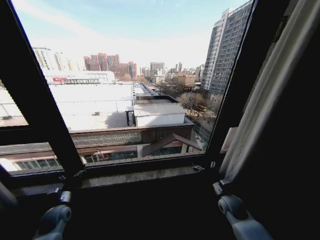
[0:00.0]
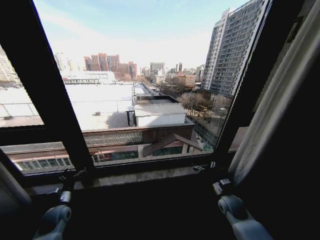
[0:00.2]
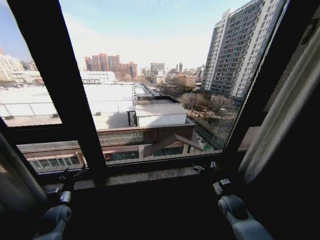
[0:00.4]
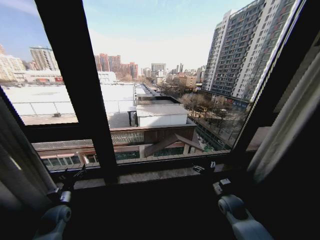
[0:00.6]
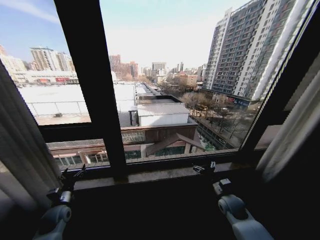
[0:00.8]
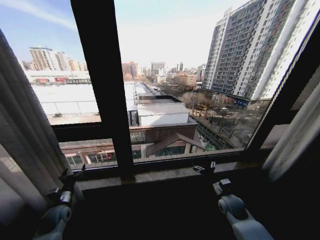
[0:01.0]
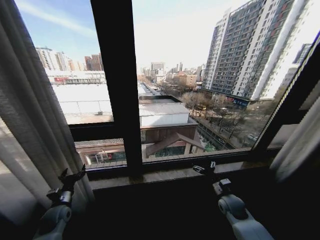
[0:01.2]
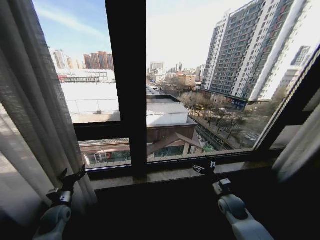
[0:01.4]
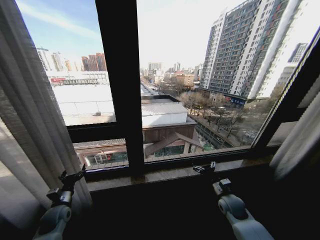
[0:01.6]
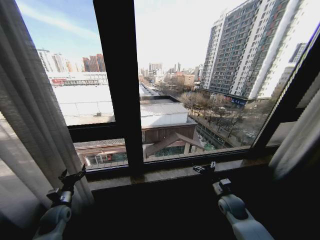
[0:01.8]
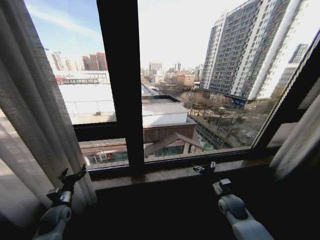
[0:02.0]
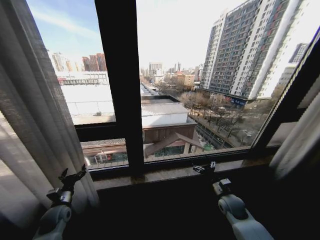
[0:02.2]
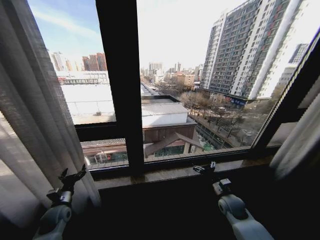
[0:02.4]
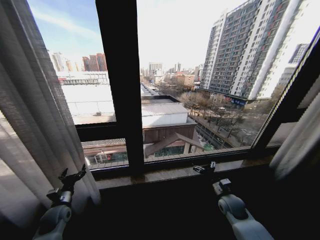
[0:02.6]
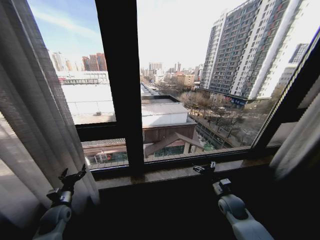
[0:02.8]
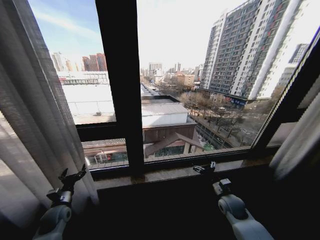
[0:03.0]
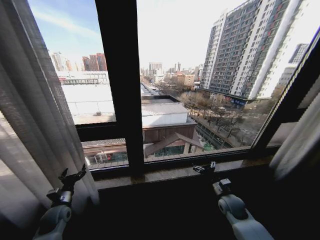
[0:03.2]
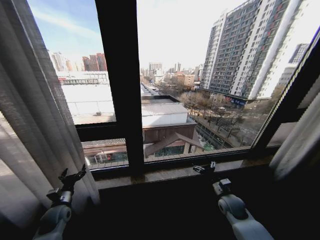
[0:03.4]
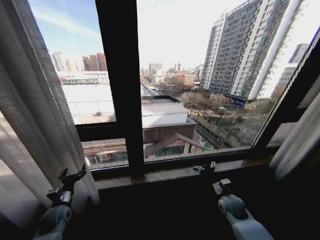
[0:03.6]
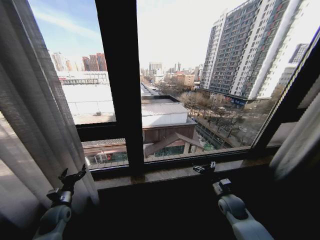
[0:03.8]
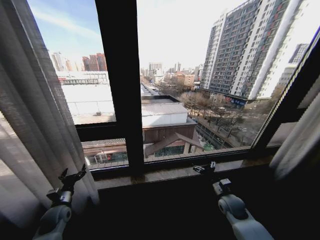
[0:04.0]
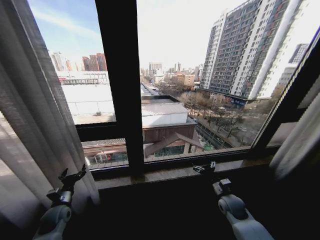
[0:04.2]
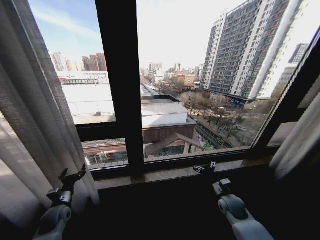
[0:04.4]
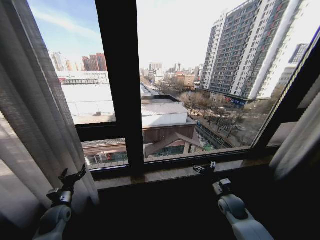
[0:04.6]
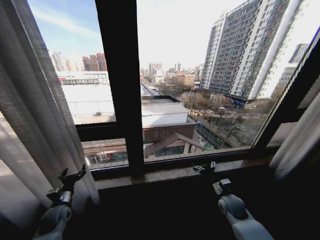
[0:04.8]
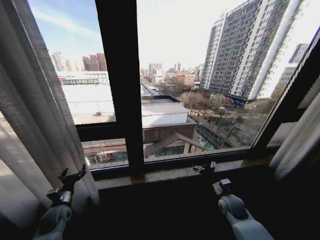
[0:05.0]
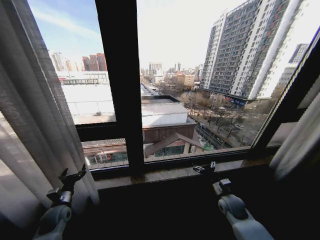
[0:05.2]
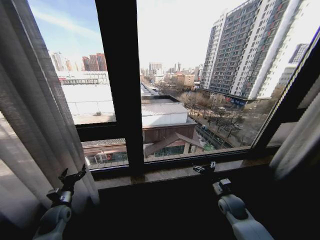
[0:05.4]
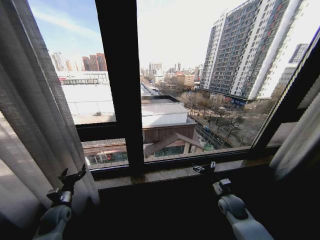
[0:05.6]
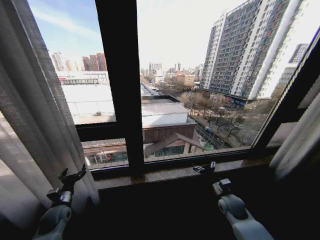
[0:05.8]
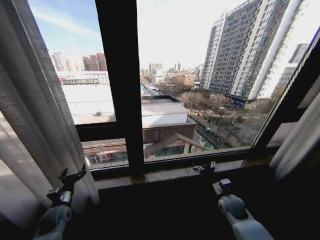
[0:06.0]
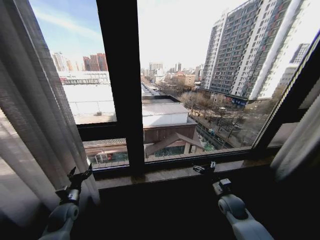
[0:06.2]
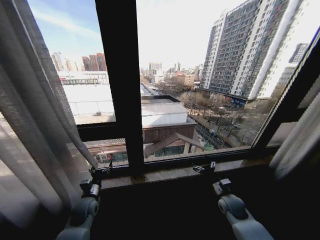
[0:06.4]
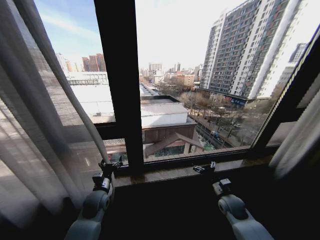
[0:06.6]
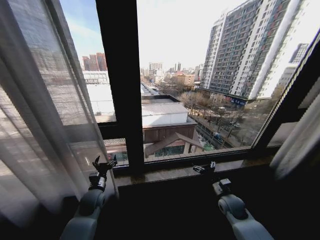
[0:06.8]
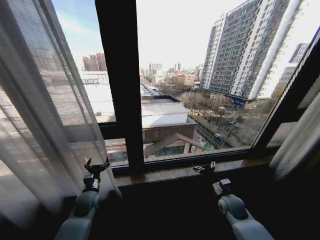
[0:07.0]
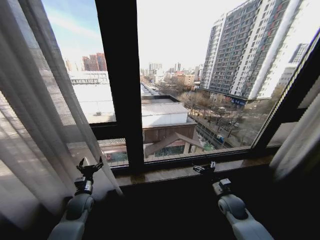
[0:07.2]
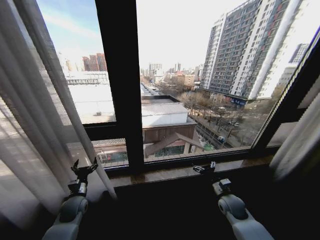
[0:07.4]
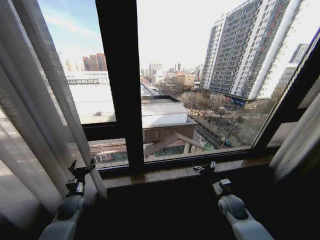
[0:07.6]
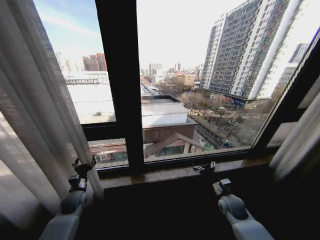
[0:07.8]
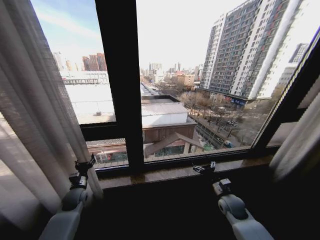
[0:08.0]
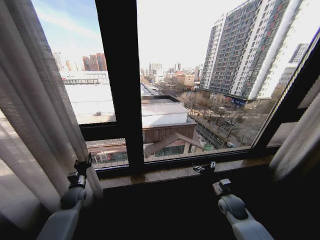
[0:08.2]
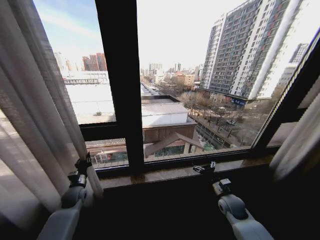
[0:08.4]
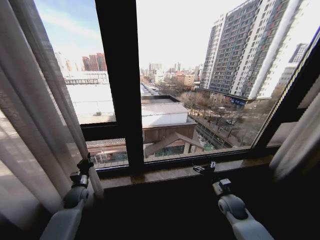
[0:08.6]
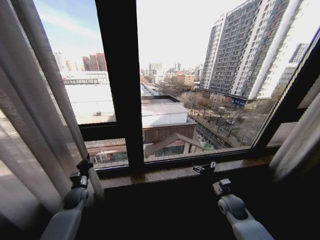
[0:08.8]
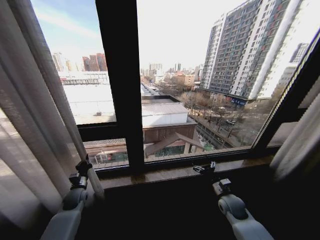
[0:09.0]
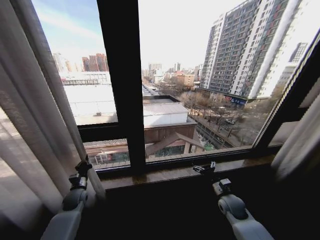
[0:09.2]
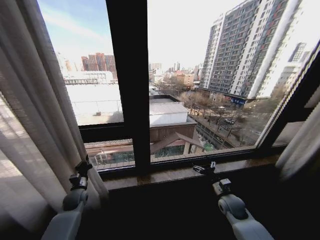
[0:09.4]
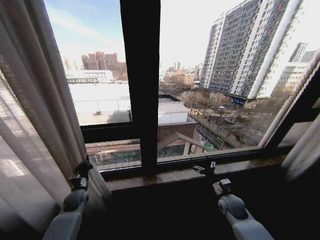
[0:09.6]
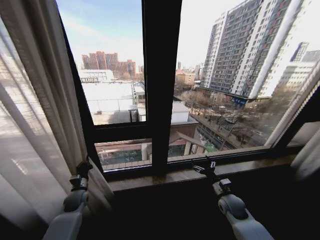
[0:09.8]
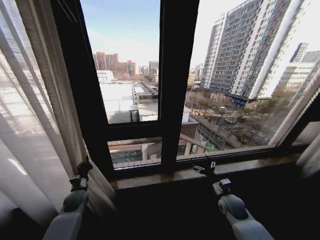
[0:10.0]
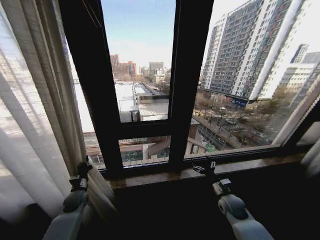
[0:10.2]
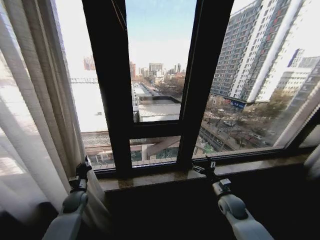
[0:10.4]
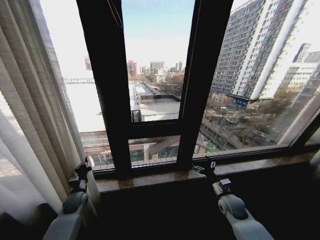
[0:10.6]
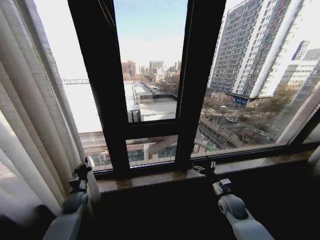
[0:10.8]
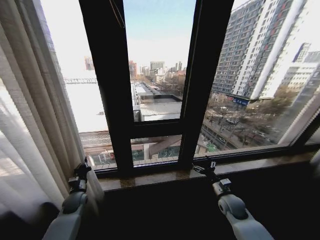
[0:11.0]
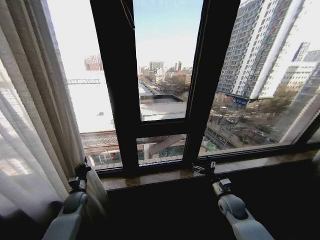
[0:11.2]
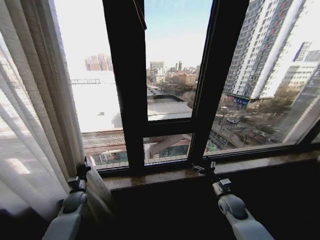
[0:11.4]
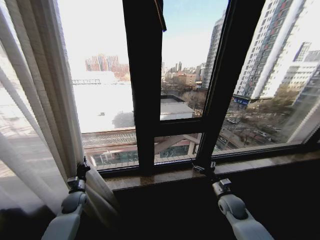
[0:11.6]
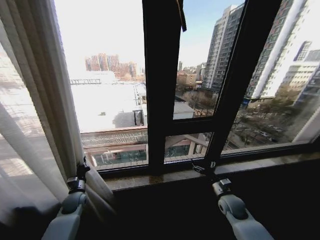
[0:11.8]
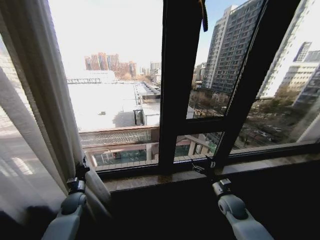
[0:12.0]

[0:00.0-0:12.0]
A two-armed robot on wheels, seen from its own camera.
Task of the whole recording: Open the curtains by pulling them apart, changing their state from closed to fully open.
0:01.6 to 0:06.0: The two grippers keep their place.
0:06.0 to 0:07.6: The left gripper travels to the right and back again, approximately 15 cm each way.
0:07.6 to 0:09.0: The left gripper closes its fingers.

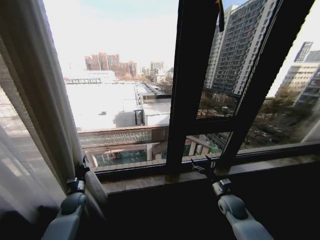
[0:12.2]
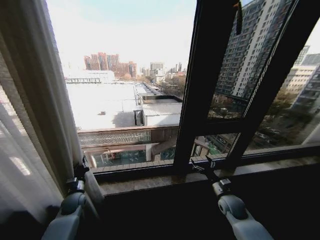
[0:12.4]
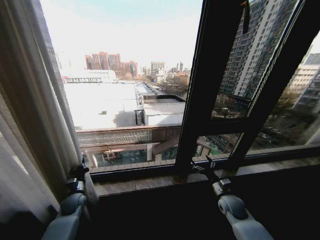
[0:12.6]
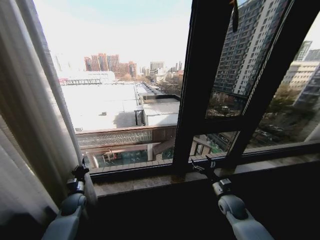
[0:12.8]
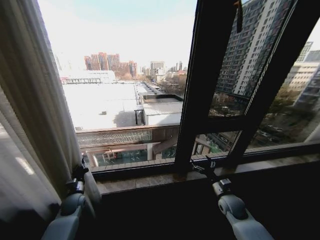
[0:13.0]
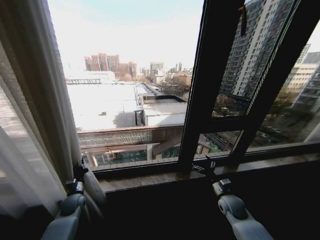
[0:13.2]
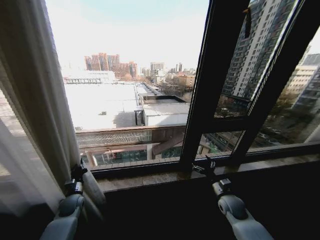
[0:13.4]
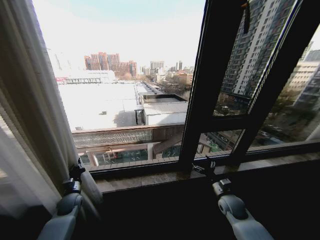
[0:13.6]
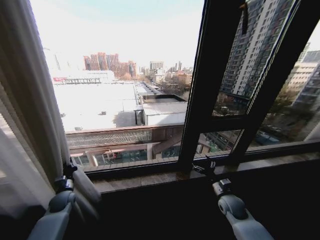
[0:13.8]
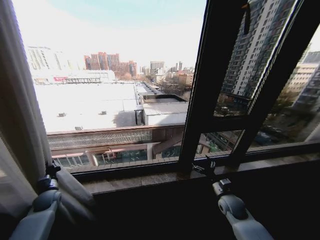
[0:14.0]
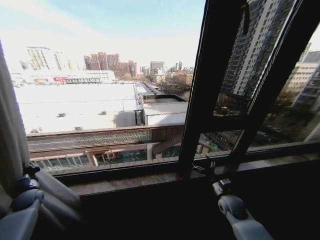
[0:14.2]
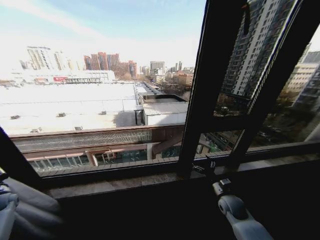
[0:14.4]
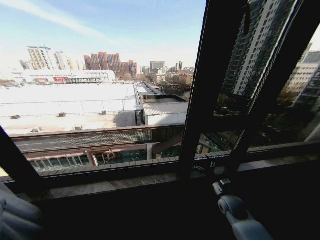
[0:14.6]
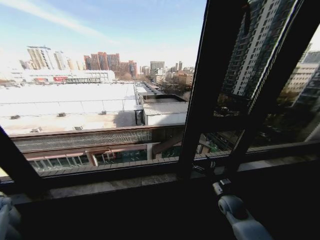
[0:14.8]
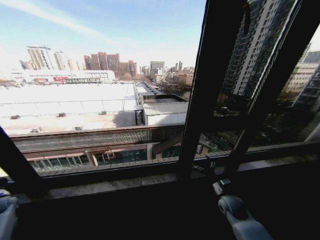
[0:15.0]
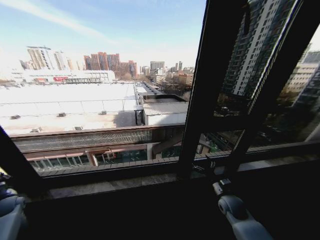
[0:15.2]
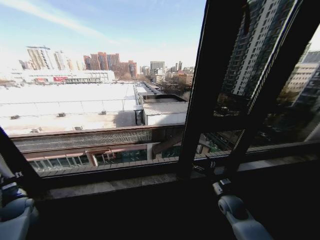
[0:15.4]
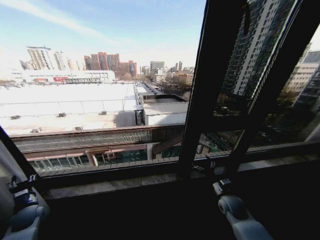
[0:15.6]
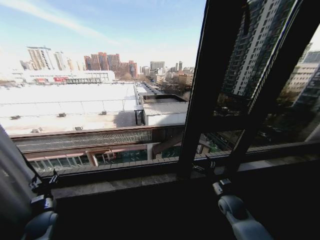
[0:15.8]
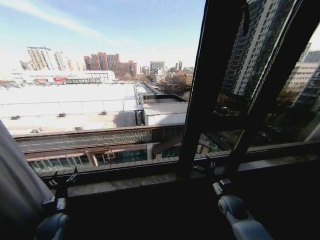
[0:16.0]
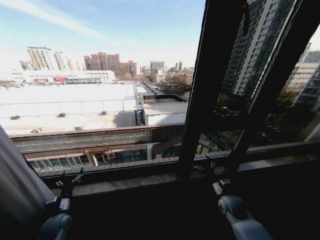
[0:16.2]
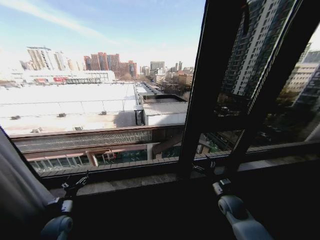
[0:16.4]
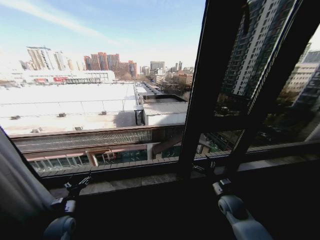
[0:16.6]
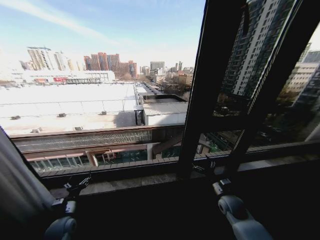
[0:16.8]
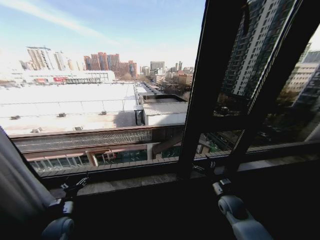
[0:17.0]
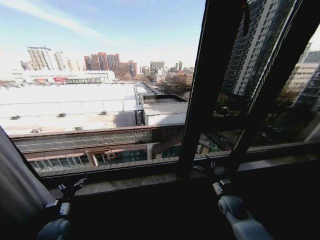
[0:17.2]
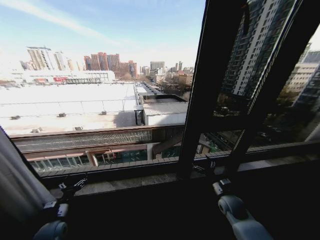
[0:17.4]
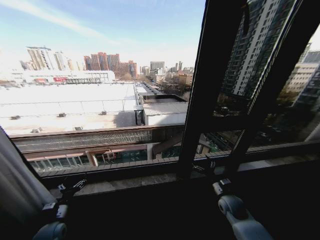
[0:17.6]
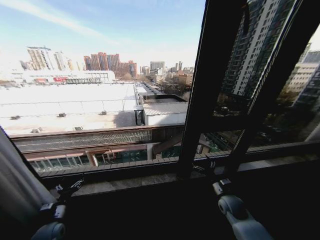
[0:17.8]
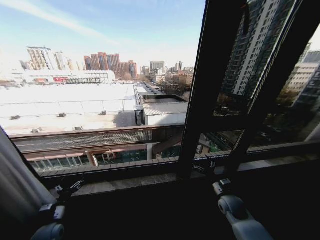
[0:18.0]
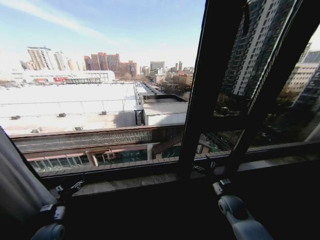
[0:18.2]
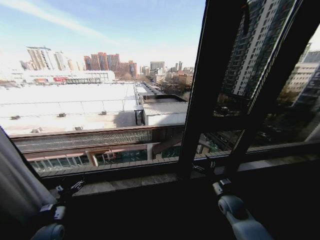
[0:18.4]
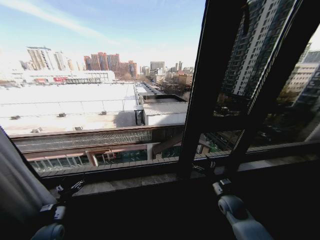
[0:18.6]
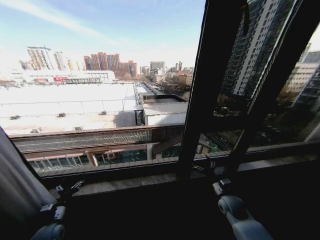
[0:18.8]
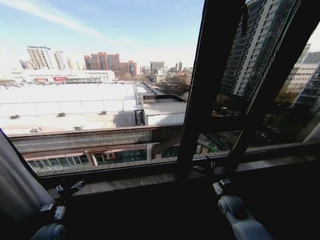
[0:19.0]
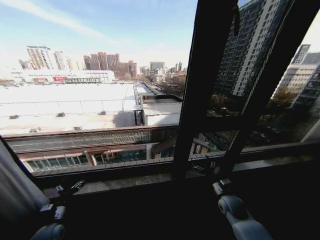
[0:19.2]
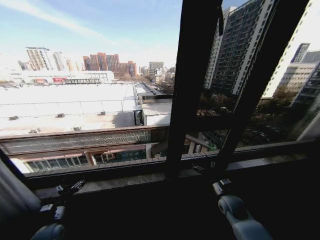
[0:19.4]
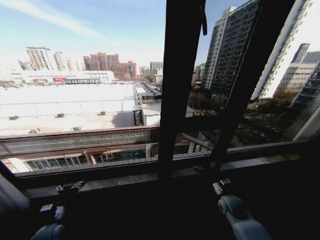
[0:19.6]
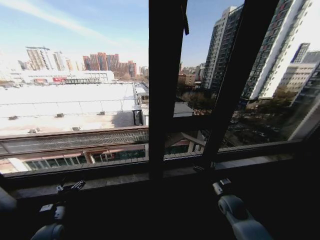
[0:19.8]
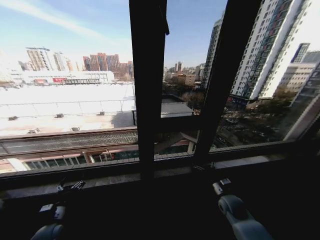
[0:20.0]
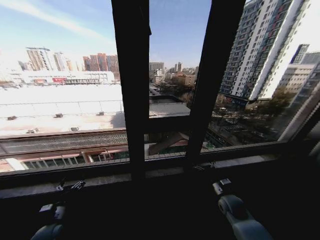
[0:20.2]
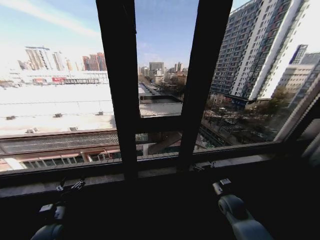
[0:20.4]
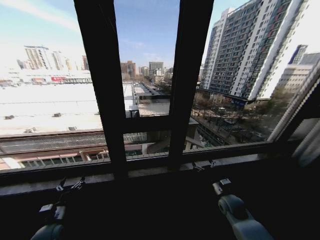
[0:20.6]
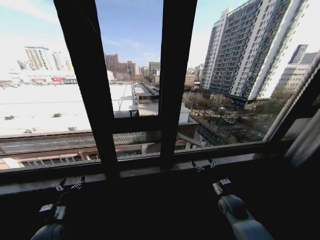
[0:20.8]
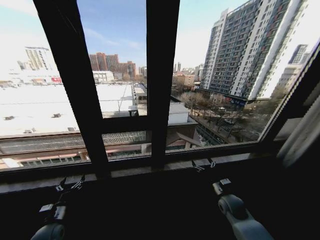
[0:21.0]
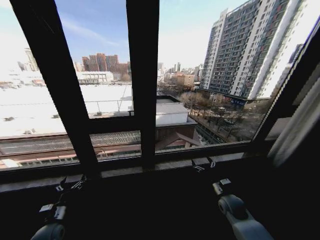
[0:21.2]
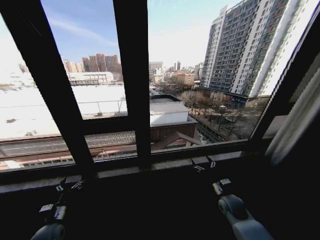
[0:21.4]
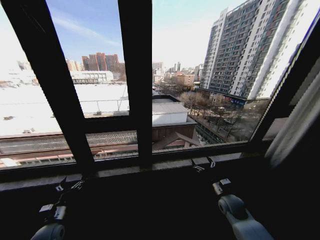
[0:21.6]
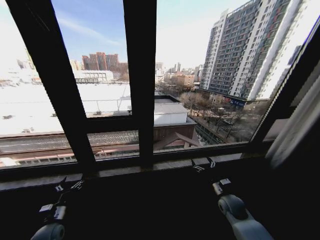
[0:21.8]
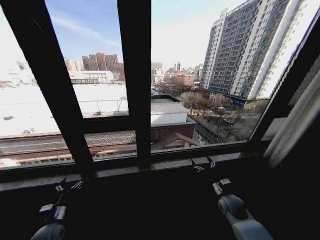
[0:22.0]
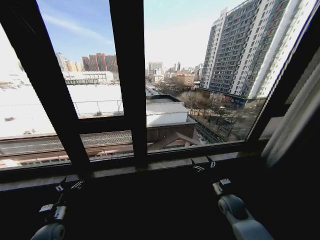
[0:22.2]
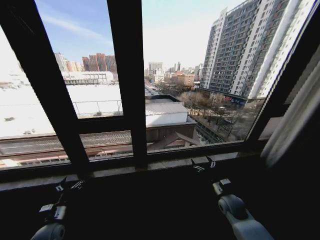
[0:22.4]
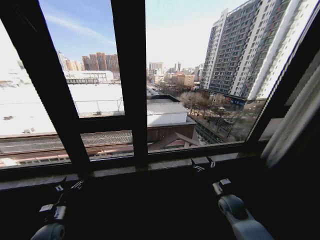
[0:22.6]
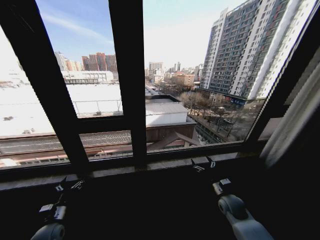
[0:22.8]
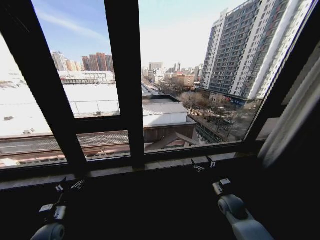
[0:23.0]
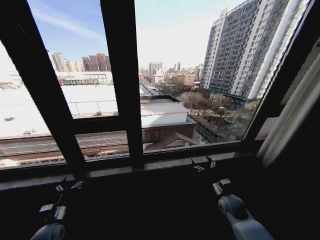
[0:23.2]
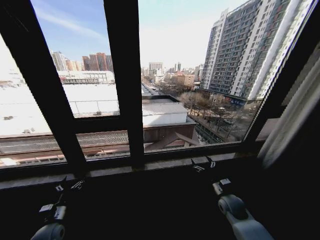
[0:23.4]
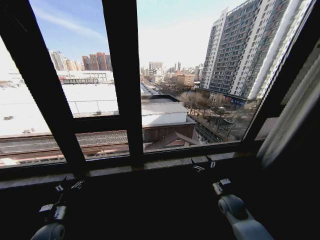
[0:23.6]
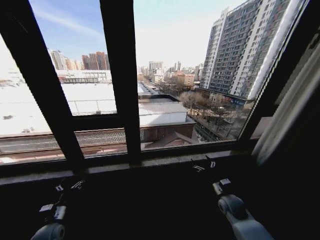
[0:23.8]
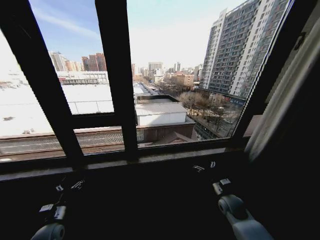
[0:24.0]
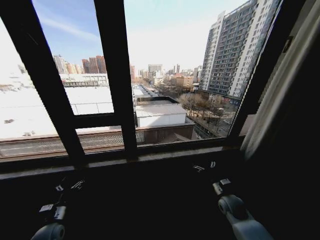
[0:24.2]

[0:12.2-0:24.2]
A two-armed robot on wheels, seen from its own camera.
Task of the whole recording: Open the curtains by pulling them apart, changing their state from closed to fully open.
0:12.2 to 0:13.8: The left gripper goes roughly 5 cm to the left.
0:13.8 to 0:15.2: The left gripper is displaced to the left by some 20 cm.
0:15.2 to 0:16.6: The left gripper is displaced to the right by approximately 25 cm, and opens.
0:16.6 to 0:18.2: The grippers make only small movements.
